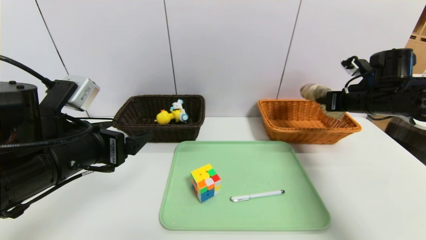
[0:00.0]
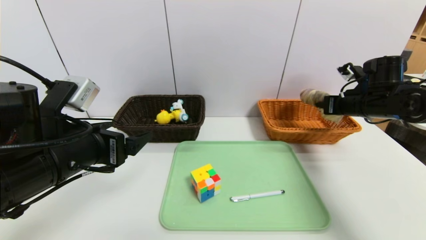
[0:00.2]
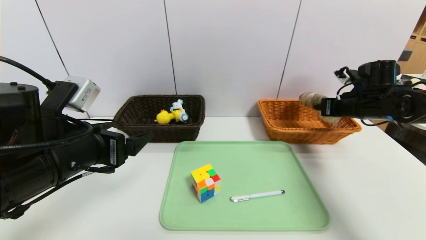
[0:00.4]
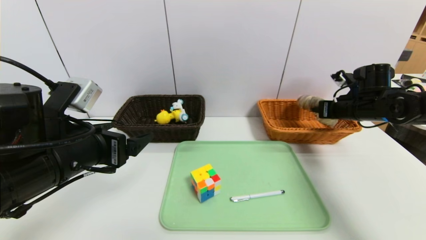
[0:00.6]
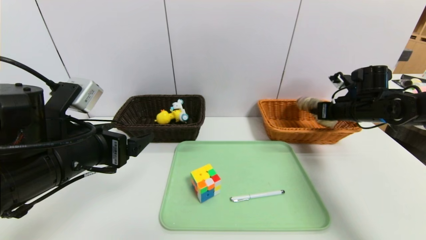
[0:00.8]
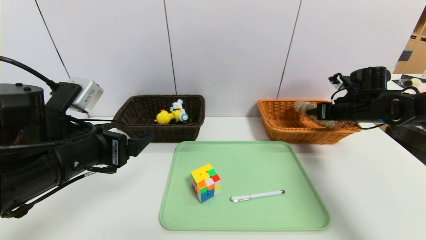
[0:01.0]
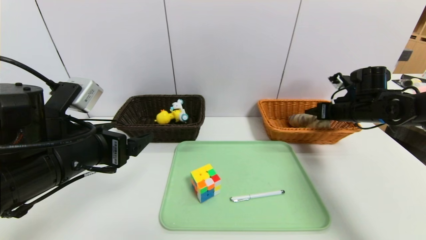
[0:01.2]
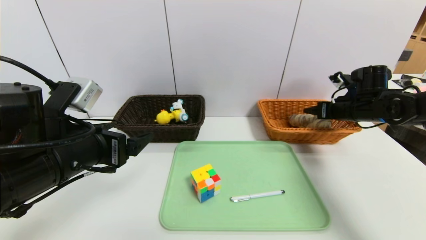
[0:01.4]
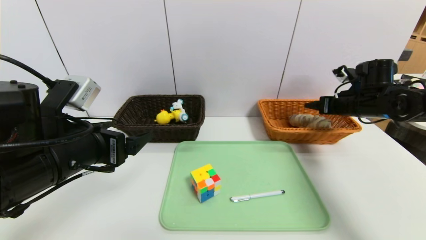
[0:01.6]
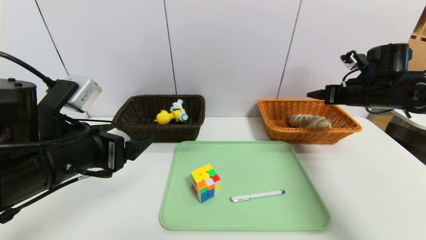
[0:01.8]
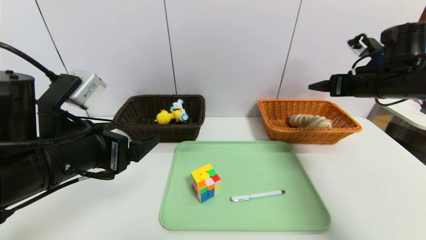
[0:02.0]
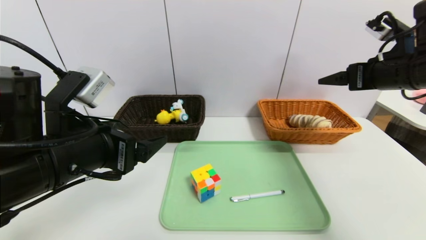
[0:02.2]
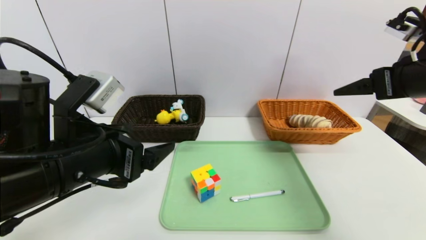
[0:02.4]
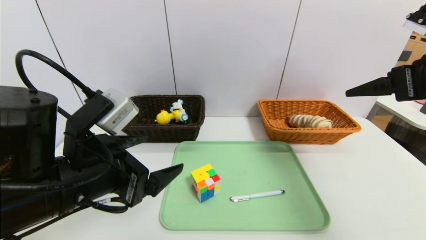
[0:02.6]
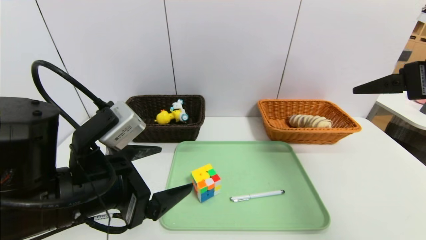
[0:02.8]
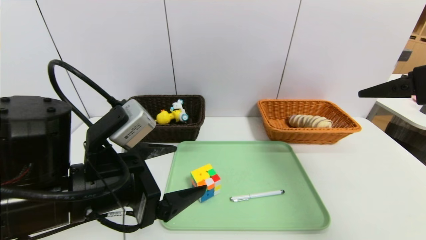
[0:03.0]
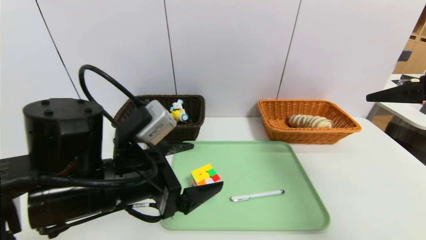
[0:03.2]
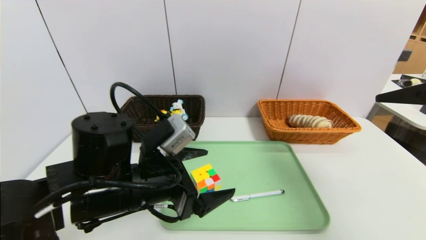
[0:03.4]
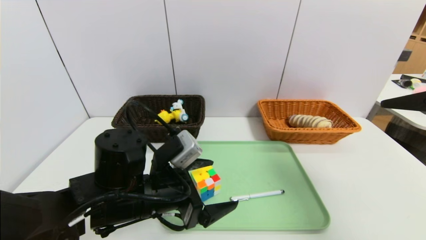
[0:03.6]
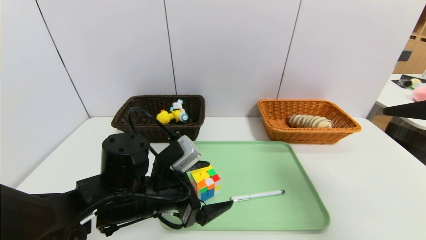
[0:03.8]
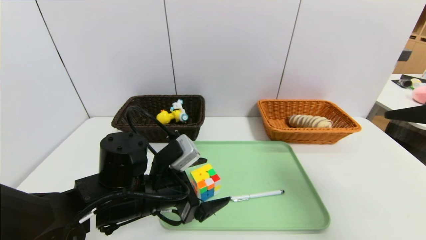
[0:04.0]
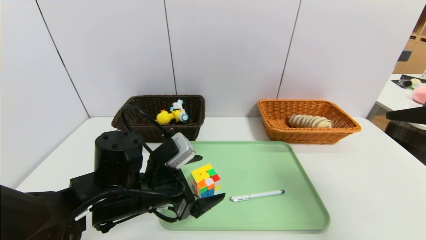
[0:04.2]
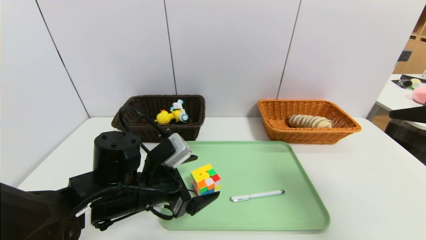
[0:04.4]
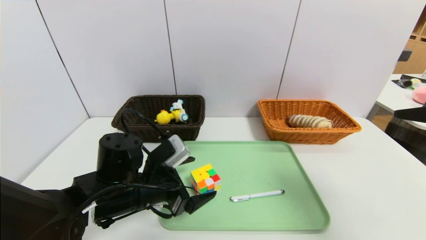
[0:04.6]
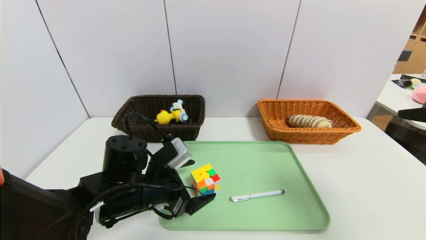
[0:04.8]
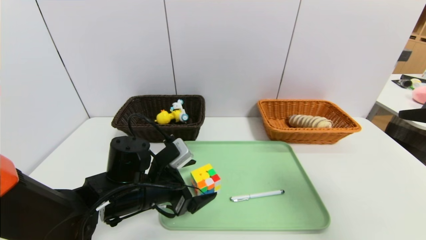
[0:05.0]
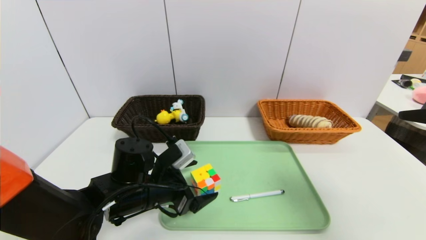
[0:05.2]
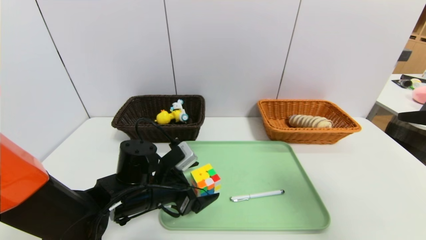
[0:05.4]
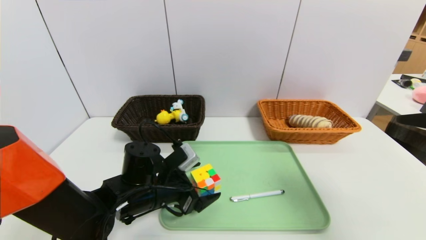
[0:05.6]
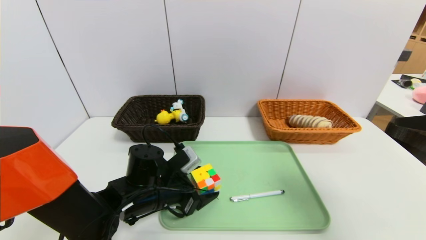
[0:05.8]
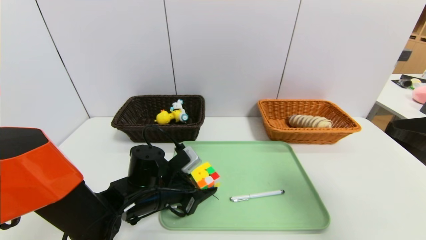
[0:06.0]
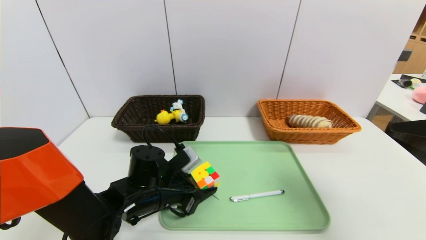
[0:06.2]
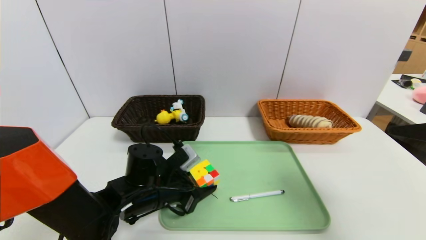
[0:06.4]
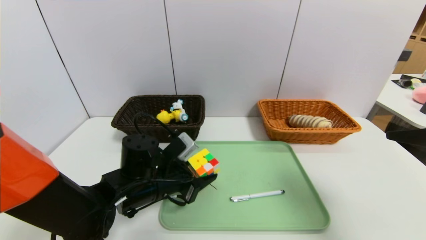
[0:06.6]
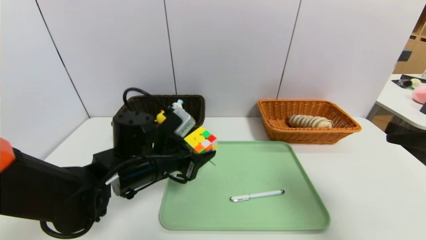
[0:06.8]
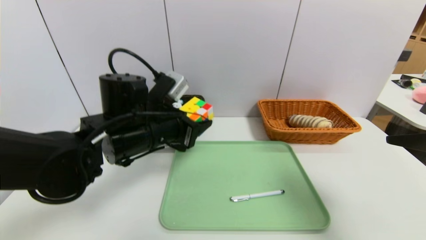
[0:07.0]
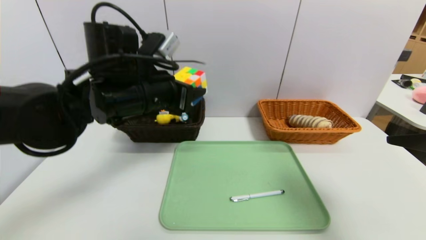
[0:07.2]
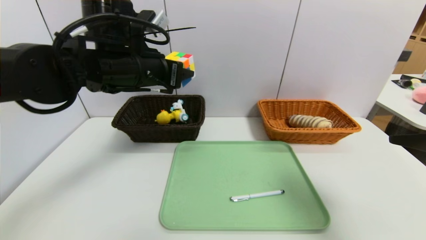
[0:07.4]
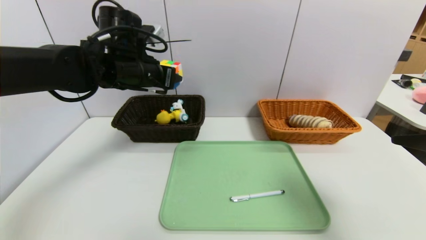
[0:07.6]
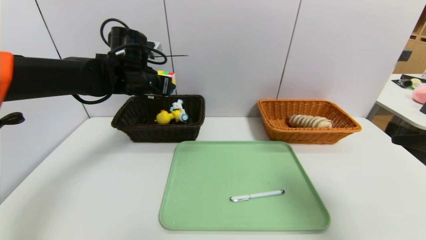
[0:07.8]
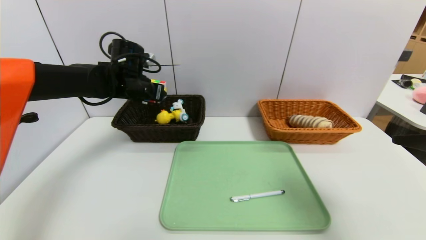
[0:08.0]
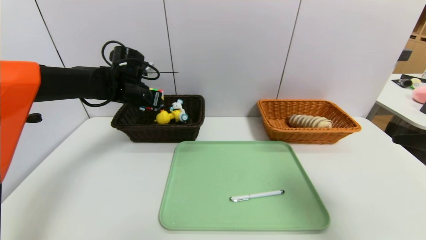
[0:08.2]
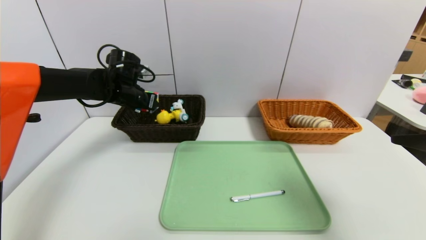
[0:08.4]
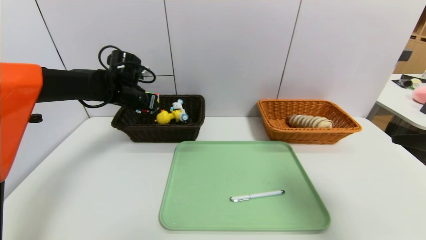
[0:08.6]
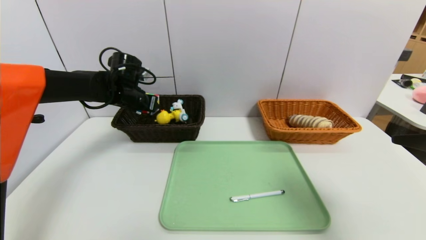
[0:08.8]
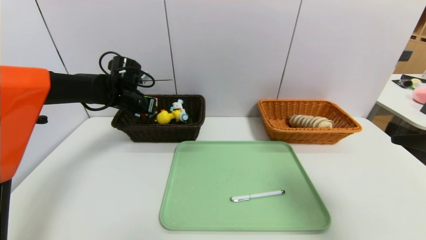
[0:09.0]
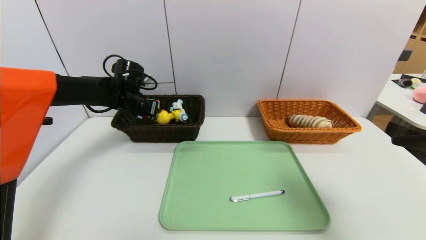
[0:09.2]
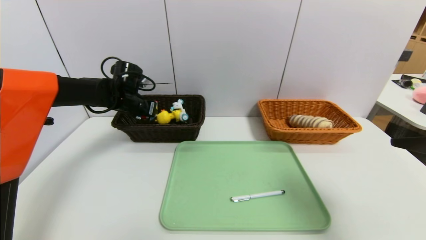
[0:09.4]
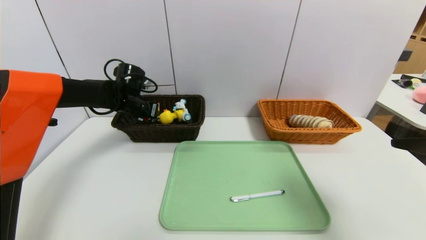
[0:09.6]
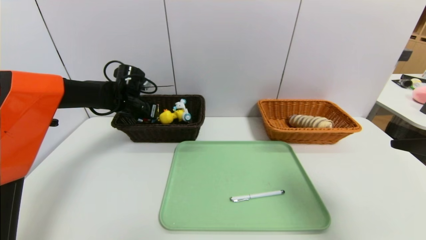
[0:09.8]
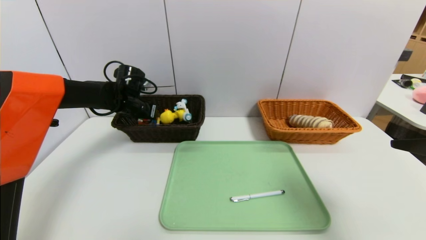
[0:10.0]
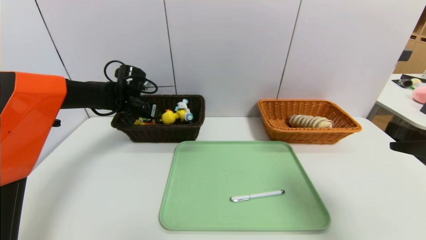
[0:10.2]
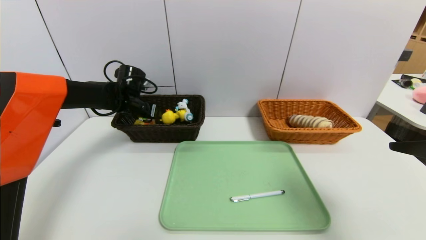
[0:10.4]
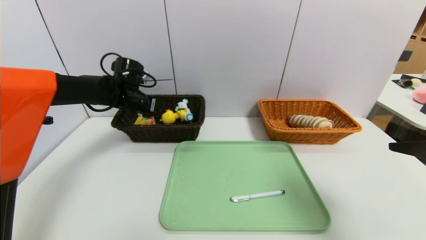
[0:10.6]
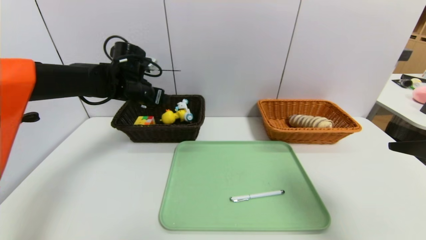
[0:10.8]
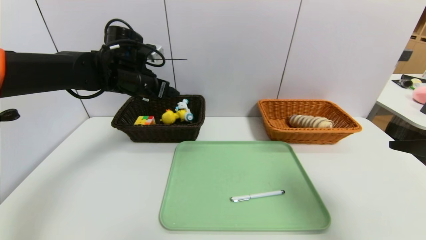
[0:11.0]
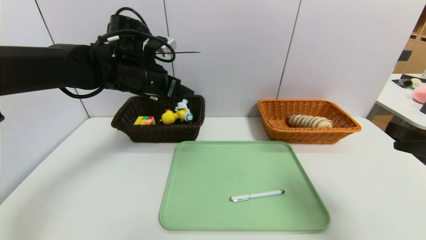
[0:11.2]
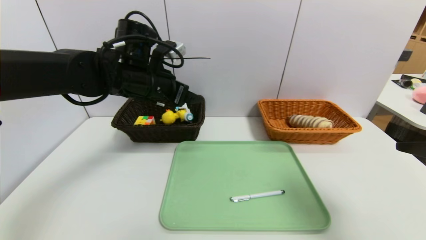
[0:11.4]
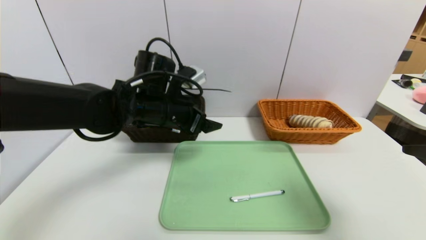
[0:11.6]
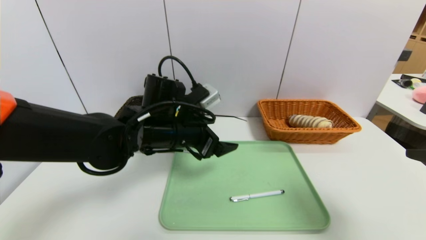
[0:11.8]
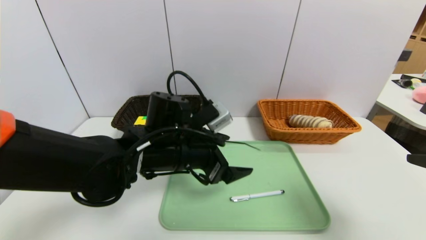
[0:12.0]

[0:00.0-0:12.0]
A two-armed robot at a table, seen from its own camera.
Task of the whole recording: place the food in the right basket with the right gripper, and place the non food items in the left basket with the left gripper.
Step, 0:00.0 to 0:02.0: Grasp the long bread and put it in the right basket.
Step, 0:02.2 to 0:11.2: Grasp the rubiks cube and put it in the left basket.
0:00.0 to 0:01.6: The right gripper opens its fingers.
0:01.6 to 0:03.0: The left gripper heads to the right, covering approximately 5 cm, while the right gripper travels backward and upward by some 25 cm.
0:03.0 to 0:04.4: The right gripper moves backward, about 5 cm; the left gripper travels downward and forward by roughly 10 cm.
0:04.4 to 0:06.0: The left gripper heads downward, covering roughly 5 cm, and closes.
0:06.0 to 0:07.6: The left gripper goes about 25 cm upward and forward.
0:07.6 to 0:09.0: The left gripper travels downward, forward and to the left by about 15 cm.
0:09.0 to 0:10.4: There are only small adjustments of the grippers.
0:10.4 to 0:12.0: The left gripper goes roughly 25 cm backward and to the right.

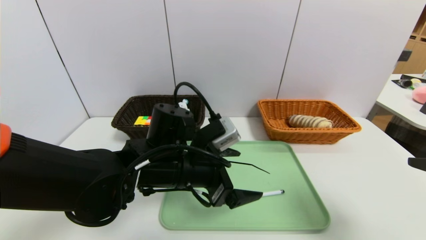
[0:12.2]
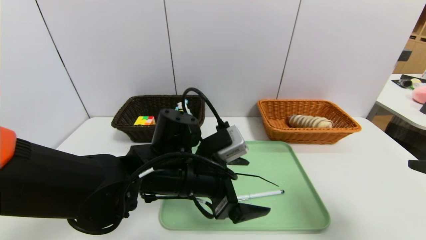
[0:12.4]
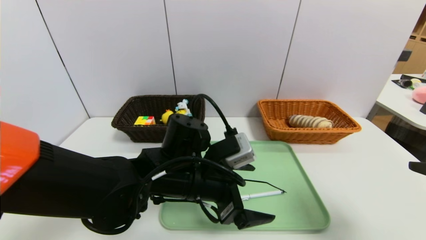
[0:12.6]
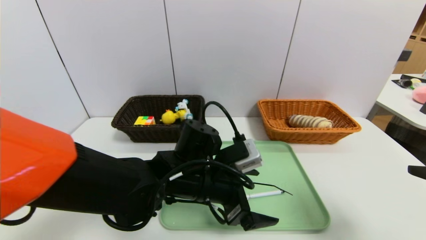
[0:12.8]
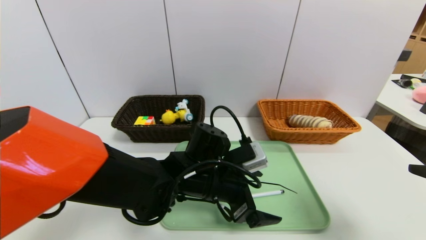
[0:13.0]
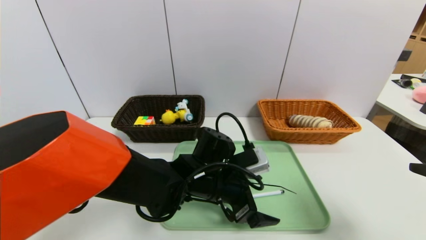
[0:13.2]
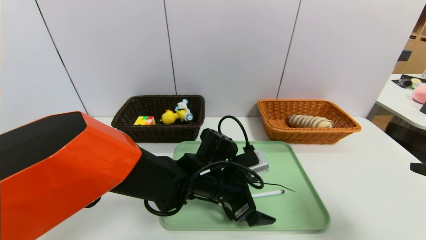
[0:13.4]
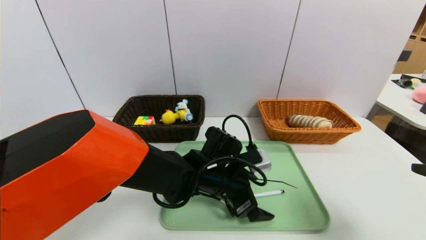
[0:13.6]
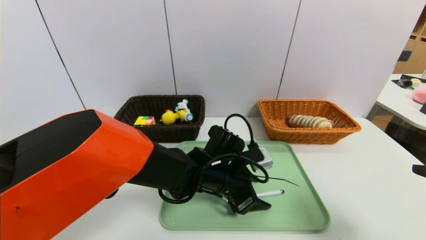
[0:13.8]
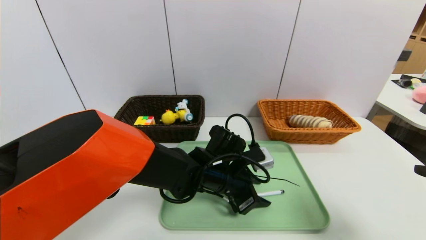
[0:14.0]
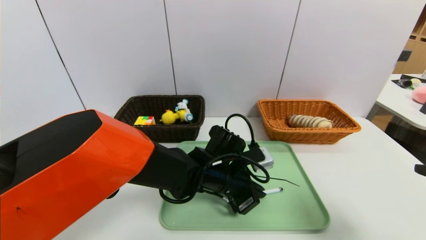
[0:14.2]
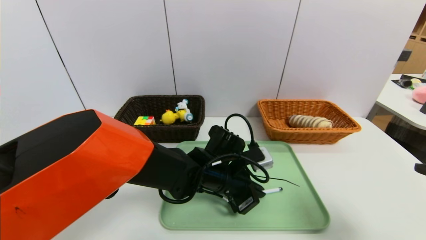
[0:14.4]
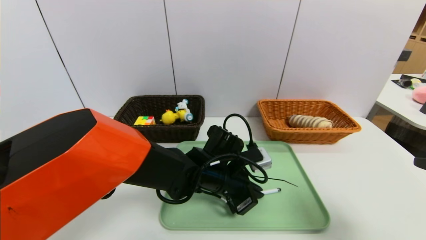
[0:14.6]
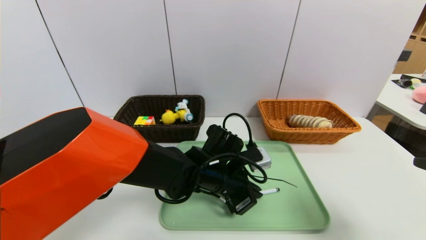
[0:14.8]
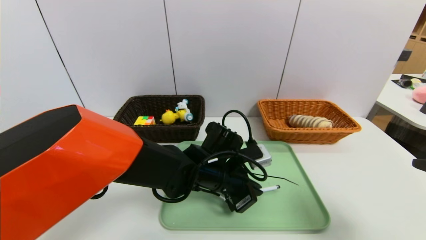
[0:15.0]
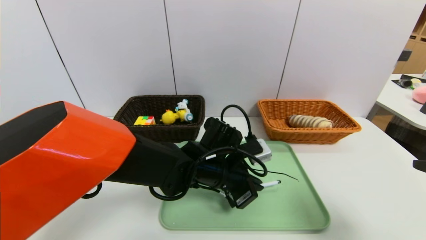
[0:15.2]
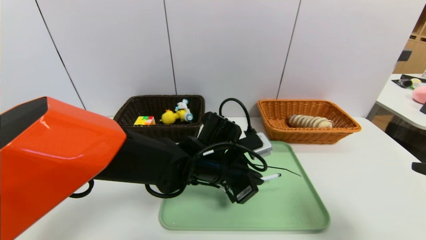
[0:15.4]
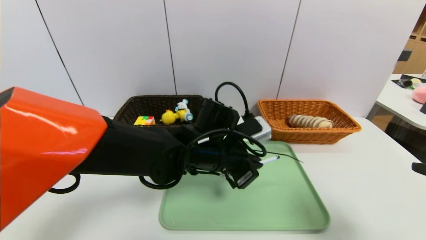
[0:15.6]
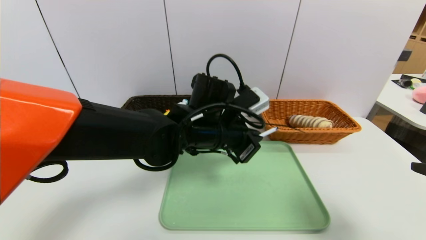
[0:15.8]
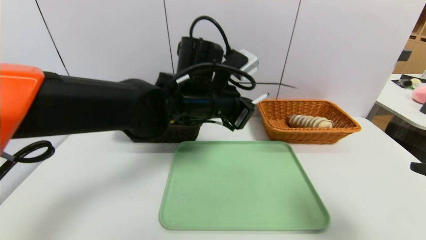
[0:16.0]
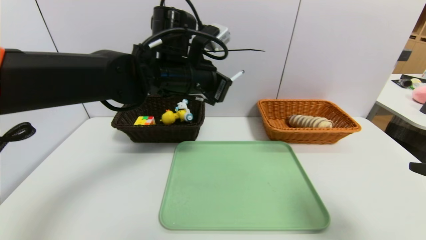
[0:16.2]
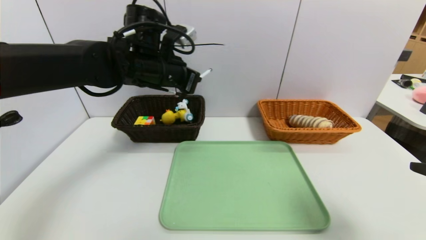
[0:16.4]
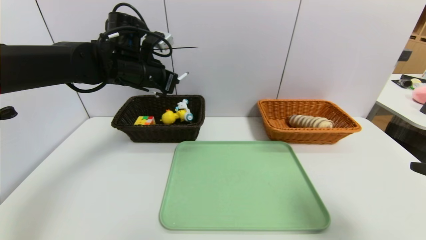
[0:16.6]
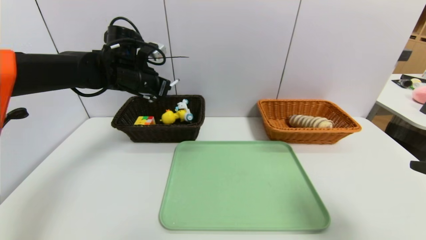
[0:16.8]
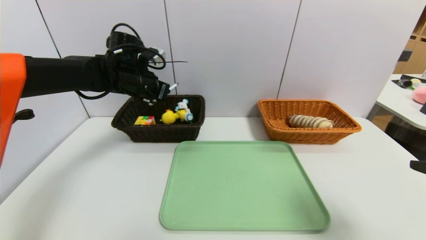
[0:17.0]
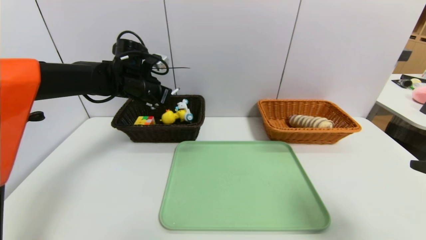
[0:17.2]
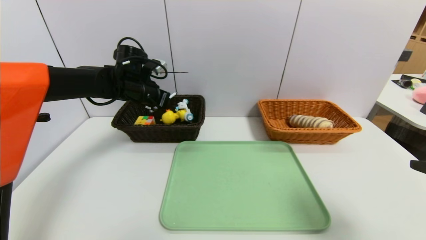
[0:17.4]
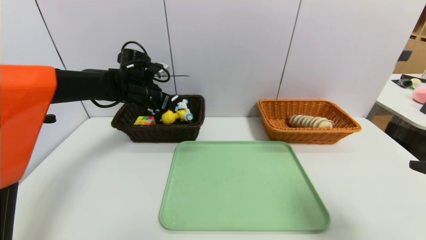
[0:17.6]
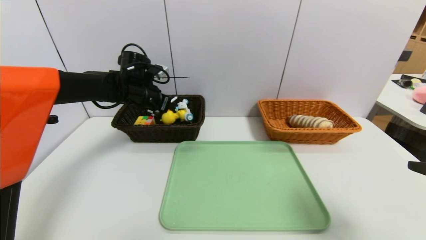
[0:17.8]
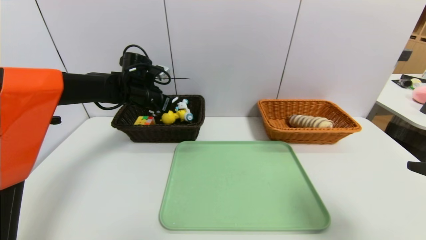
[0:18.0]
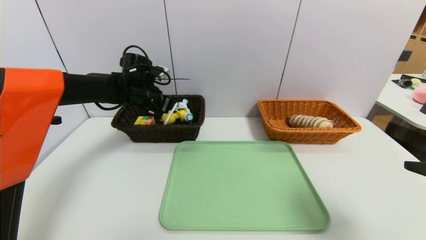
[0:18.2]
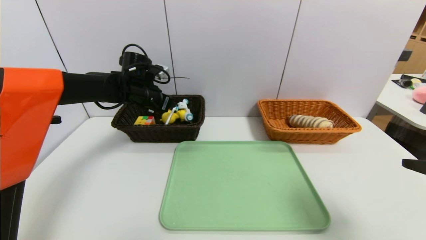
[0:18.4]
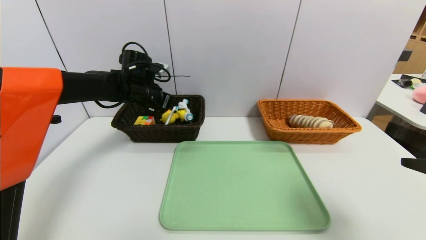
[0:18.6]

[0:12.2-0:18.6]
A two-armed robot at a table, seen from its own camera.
Task of the whole recording: place the food in the right basket with the right gripper, and place the non food items in the left basket with the left gripper.
0:12.2 to 0:13.8: The left gripper is displaced downward and to the right by about 10 cm.
0:13.8 to 0:15.4: The left gripper closes up.
0:15.4 to 0:17.0: The left gripper is displaced to the left, forward and upward by some 25 cm.
0:17.0 to 0:18.6: The left gripper opens its fingers.
